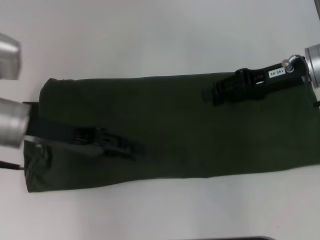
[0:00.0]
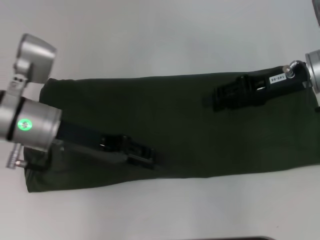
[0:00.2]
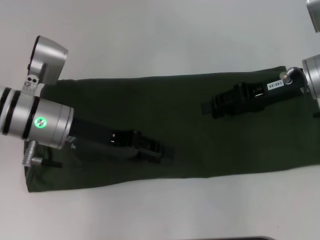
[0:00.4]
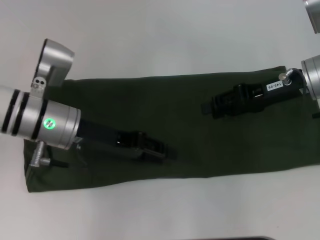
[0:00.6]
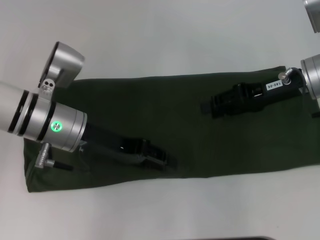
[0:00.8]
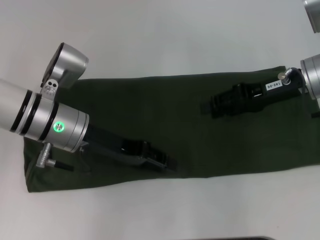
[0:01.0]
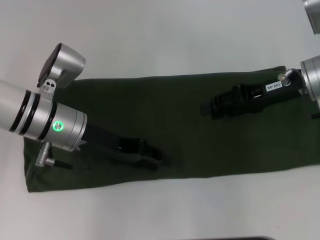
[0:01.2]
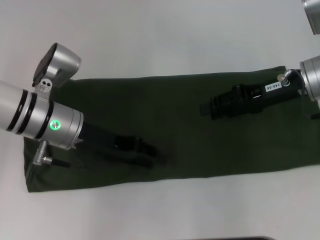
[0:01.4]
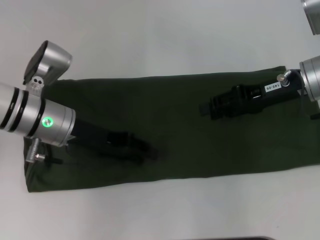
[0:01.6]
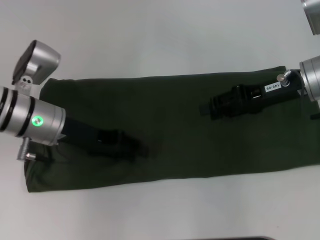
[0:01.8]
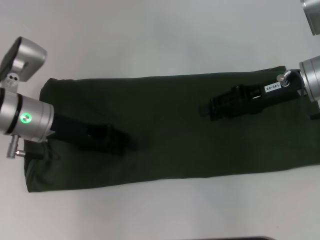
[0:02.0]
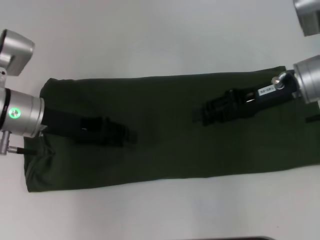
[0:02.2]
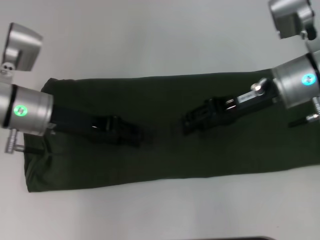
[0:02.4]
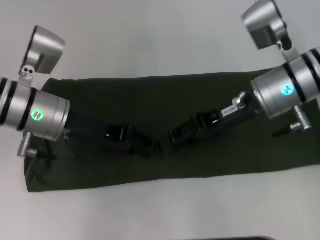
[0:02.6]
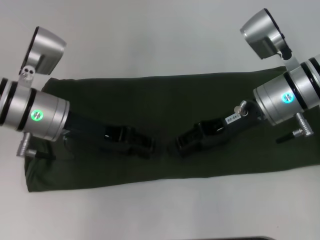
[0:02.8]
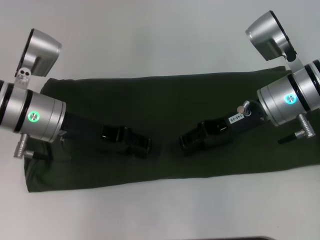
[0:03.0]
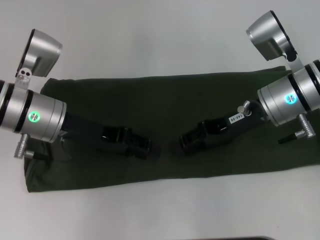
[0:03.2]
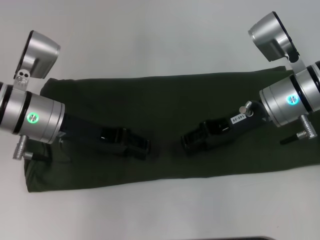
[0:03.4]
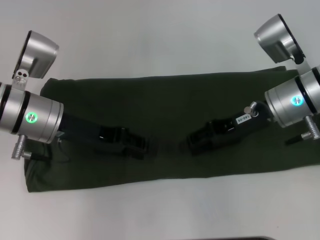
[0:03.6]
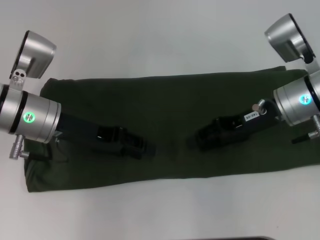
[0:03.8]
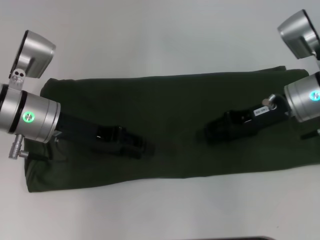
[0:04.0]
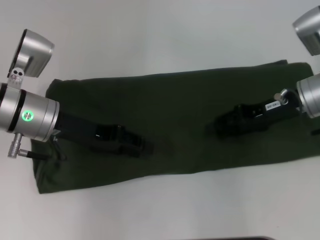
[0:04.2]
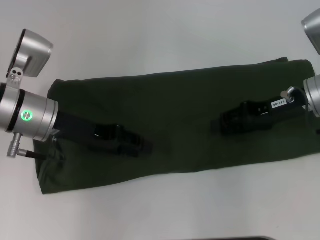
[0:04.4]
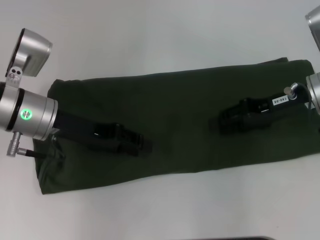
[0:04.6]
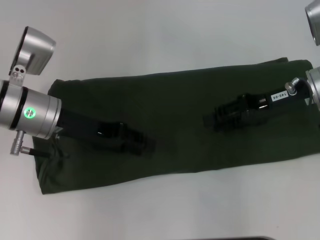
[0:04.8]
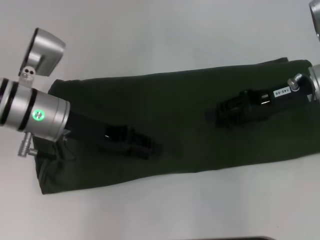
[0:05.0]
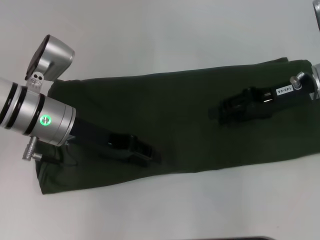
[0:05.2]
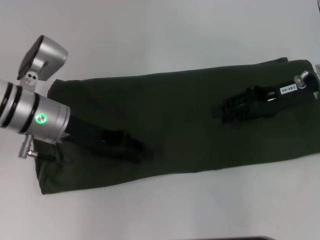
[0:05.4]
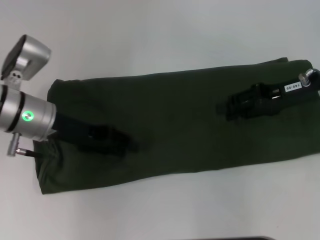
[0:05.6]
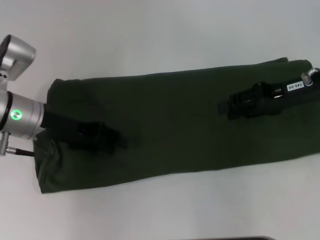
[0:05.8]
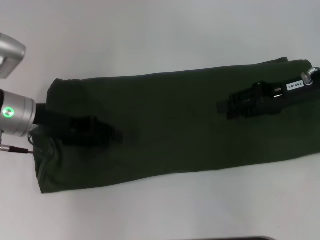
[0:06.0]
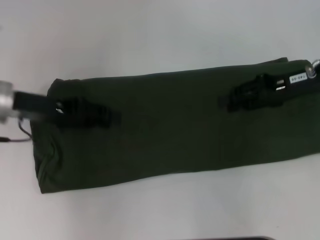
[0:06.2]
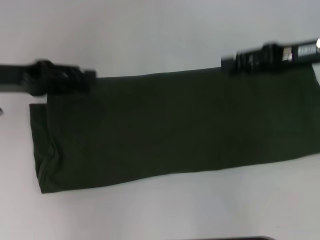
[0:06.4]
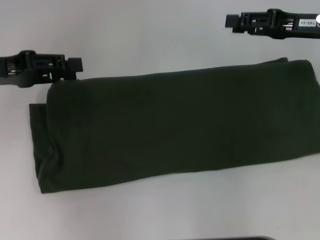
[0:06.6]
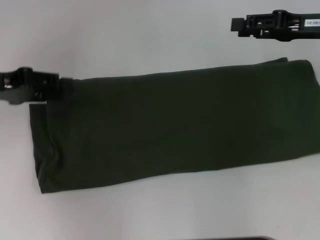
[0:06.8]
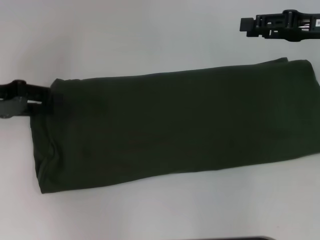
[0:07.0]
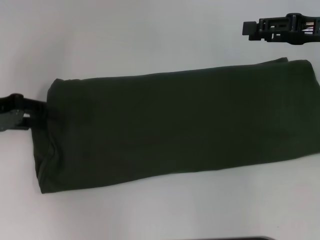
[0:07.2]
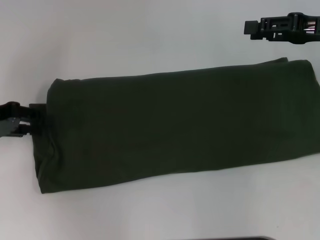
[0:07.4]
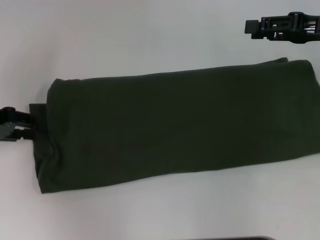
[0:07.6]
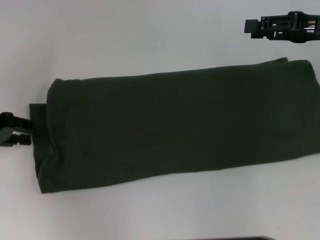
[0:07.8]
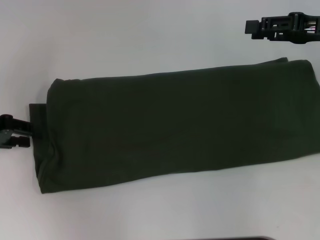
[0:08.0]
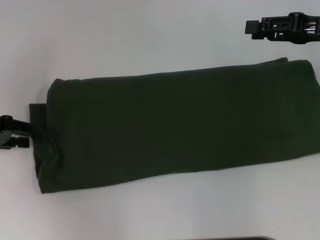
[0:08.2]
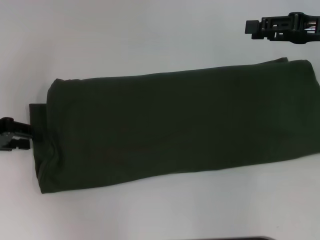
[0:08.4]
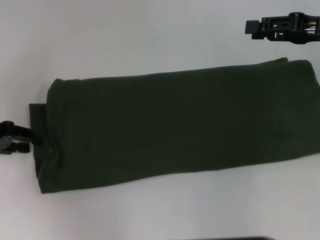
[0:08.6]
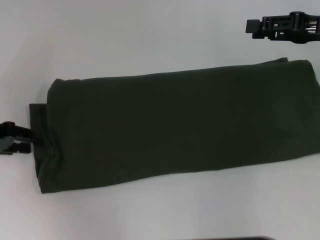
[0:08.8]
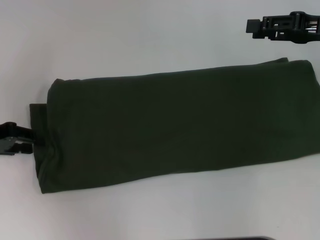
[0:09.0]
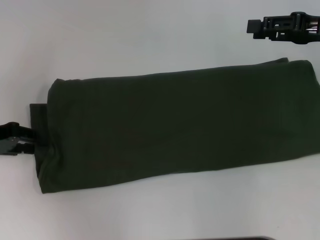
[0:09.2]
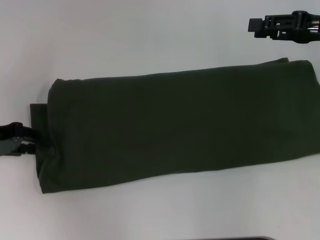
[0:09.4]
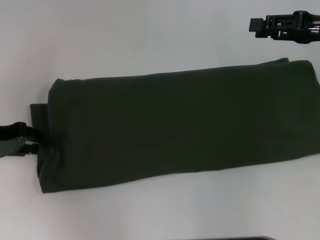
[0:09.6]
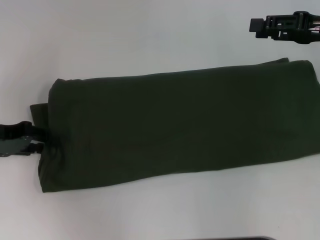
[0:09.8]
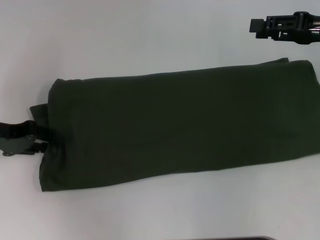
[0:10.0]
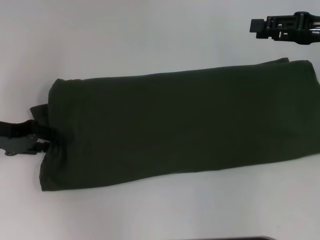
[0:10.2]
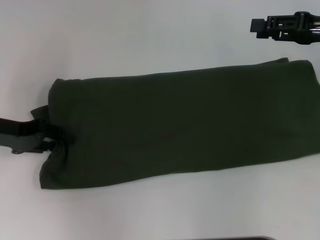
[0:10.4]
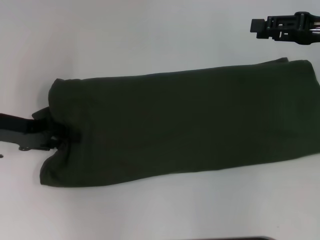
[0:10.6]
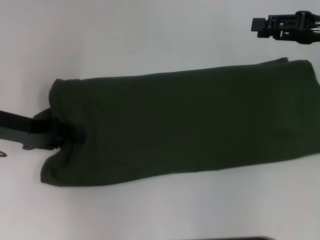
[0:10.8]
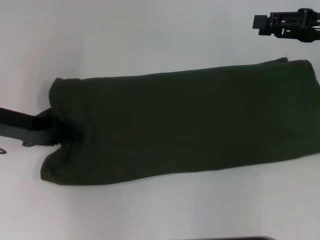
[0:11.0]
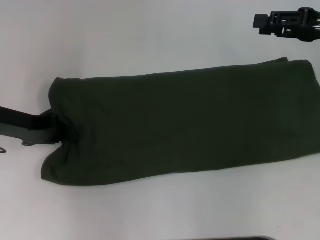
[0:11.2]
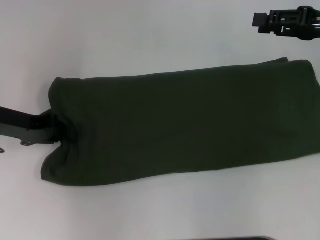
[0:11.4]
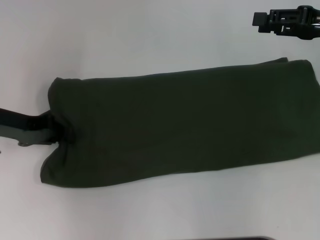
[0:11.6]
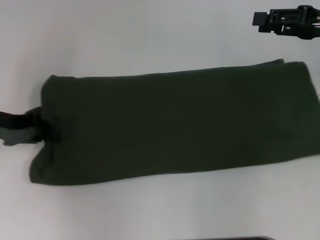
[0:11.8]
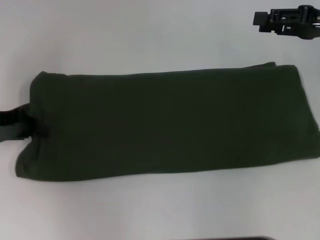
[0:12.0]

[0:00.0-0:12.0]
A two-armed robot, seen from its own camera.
0:00.0 to 0:01.6: The left gripper shifts by some 5 cm.
0:01.6 to 0:03.0: The right gripper goes about 5 cm to the left.
0:03.0 to 0:04.4: The right gripper goes some 5 cm to the right.
0:04.4 to 0:06.0: The grippers make only small movements.
0:06.0 to 0:07.6: The left gripper goes some 10 cm to the left, while the right gripper shifts by about 5 cm.
0:07.6 to 0:10.4: The grippers stay close to where they were, moving slightly.
0:10.4 to 0:12.0: The left gripper closes up.

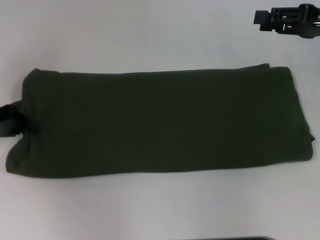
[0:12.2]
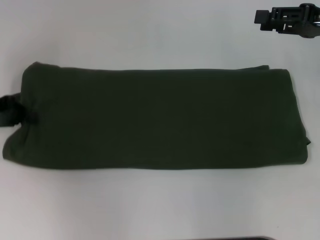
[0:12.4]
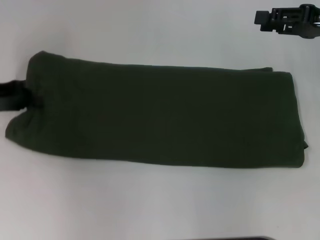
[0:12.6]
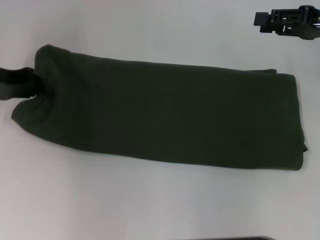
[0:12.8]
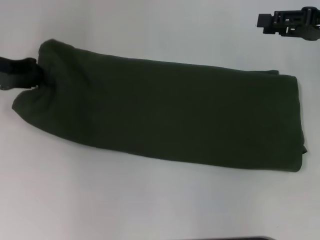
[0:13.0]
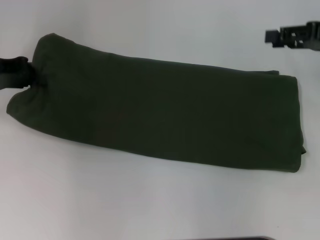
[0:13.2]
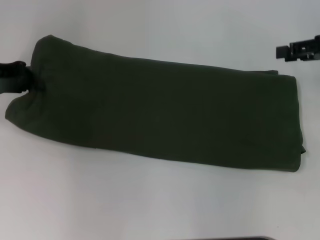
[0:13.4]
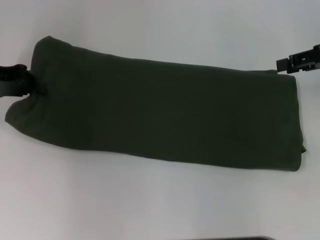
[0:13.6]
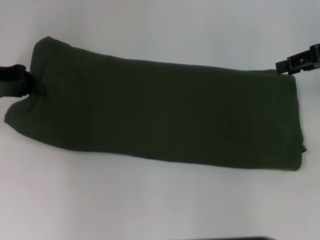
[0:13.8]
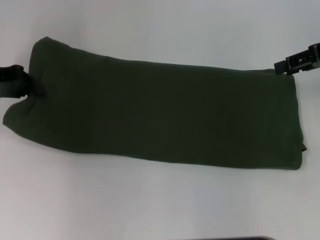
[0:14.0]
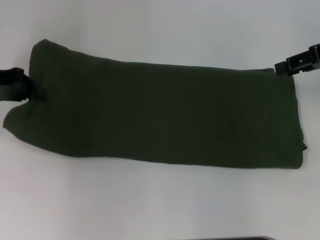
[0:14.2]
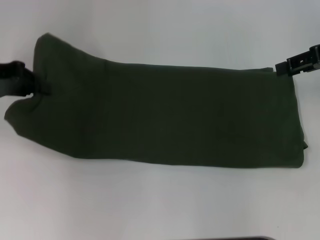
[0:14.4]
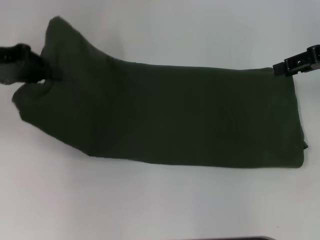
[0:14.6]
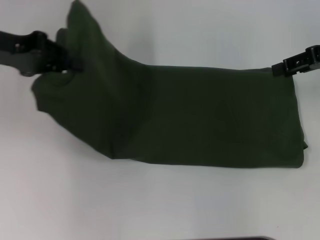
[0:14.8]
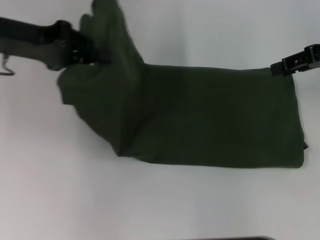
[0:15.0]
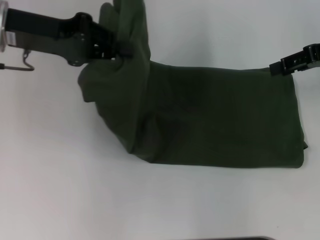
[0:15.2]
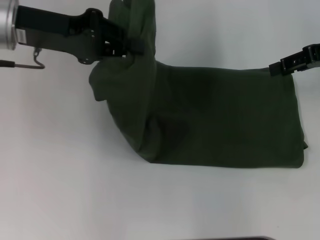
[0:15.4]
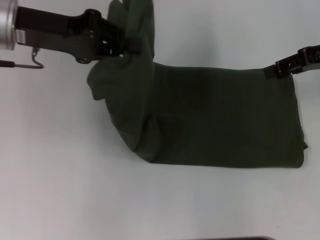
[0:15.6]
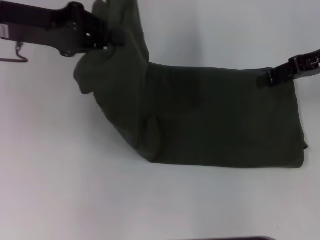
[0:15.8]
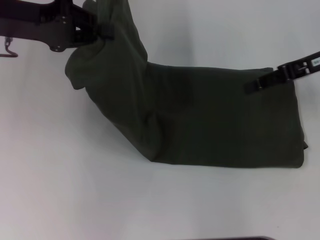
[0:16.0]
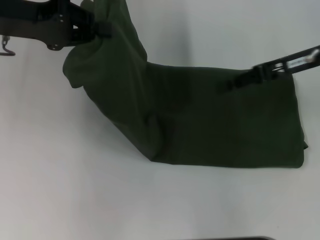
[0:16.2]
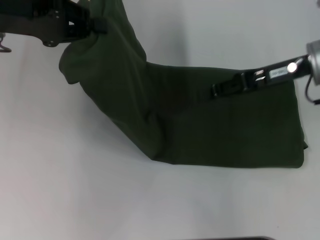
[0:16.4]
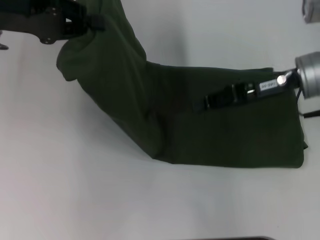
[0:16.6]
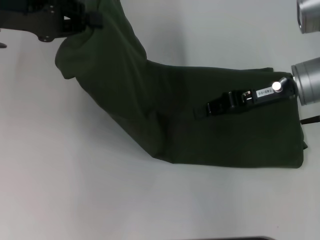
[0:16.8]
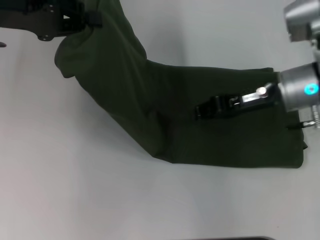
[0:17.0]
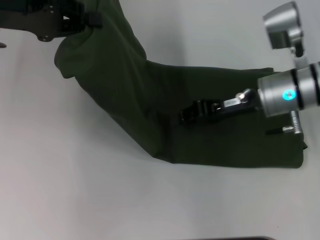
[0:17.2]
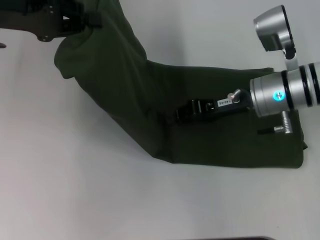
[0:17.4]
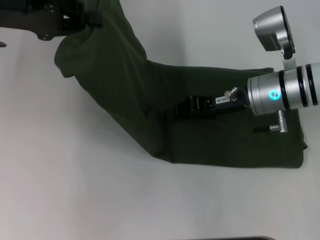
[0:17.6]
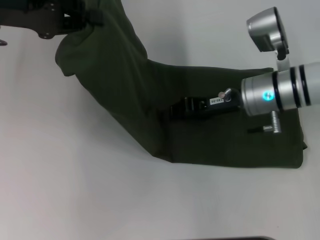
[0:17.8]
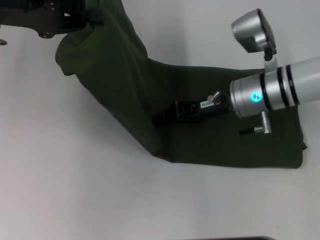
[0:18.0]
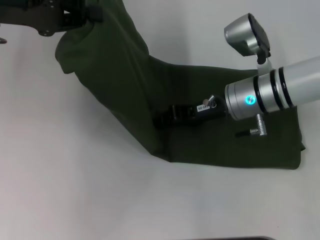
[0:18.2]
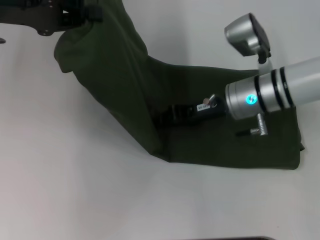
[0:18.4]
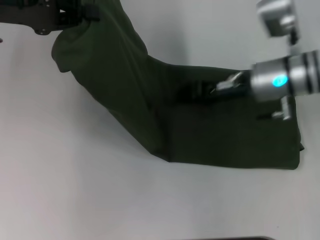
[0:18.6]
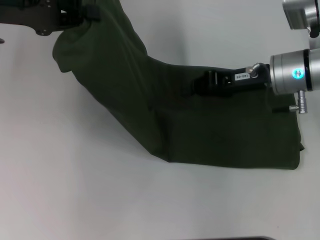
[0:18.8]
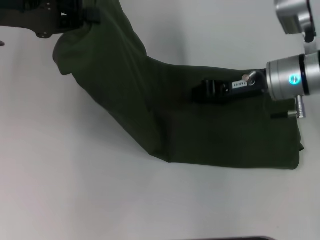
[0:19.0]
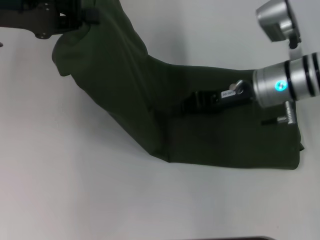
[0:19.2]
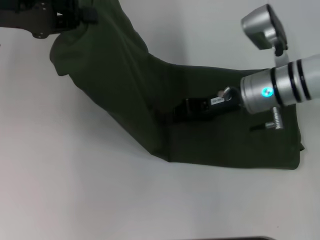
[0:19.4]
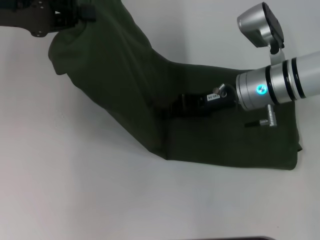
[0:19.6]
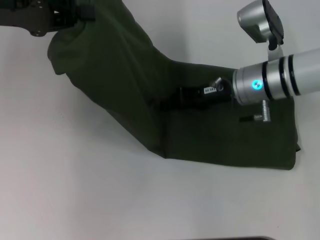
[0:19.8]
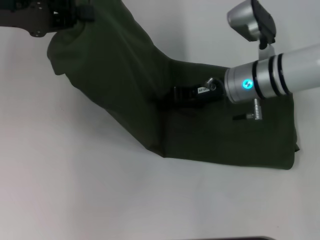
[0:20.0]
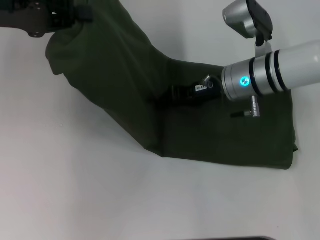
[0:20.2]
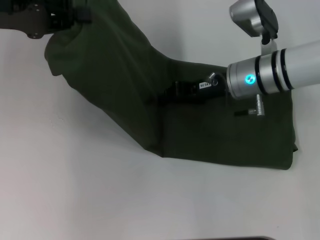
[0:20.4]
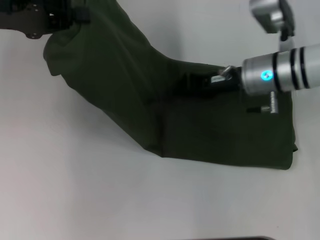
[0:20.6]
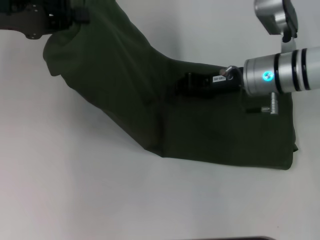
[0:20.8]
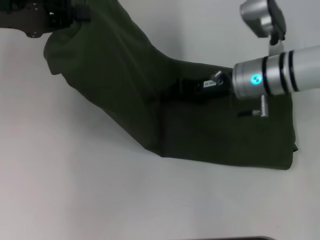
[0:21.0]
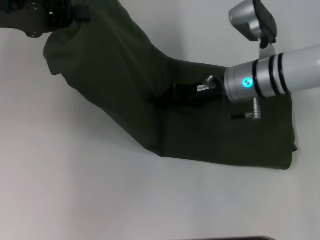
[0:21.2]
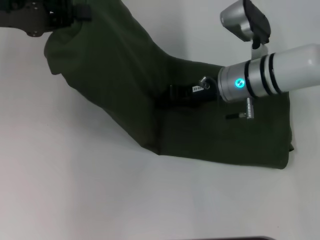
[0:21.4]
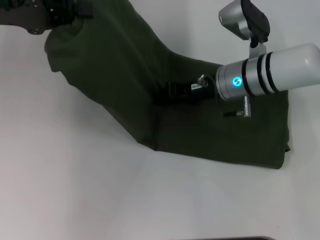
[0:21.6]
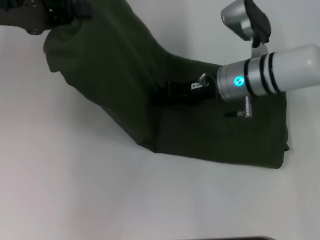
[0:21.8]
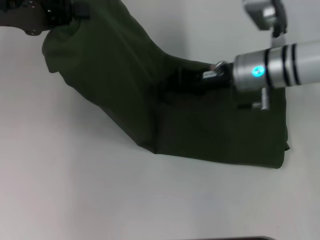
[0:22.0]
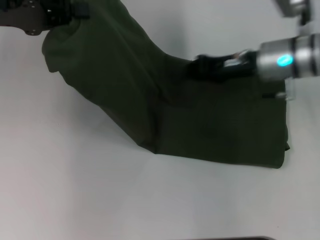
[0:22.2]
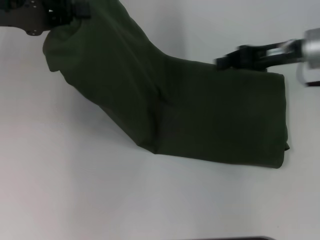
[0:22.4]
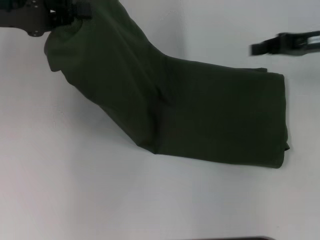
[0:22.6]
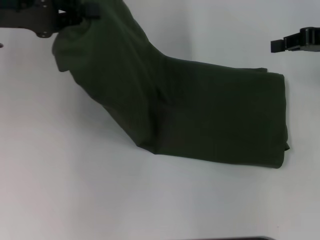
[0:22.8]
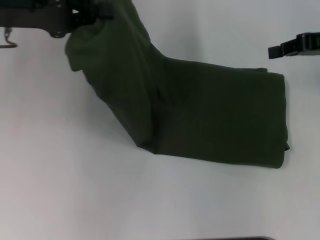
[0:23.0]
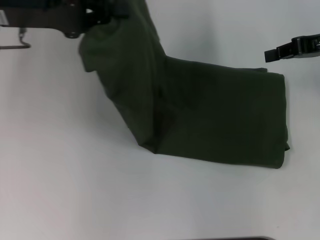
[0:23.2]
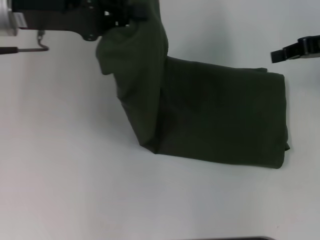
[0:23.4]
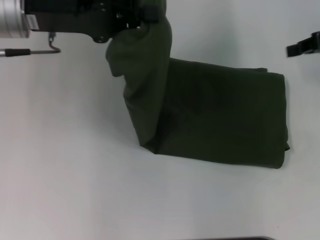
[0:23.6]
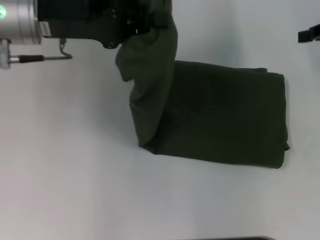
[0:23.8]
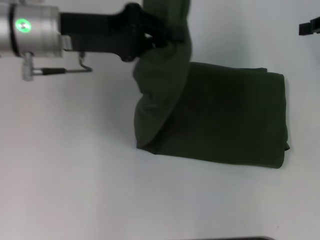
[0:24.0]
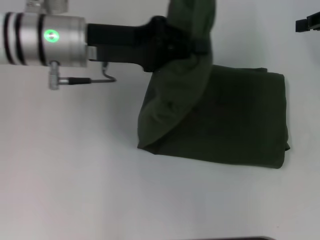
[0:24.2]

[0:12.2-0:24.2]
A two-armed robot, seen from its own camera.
0:12.2 to 0:13.8: The left gripper moves forward, roughly 5 cm.
0:13.8 to 0:15.2: The left gripper travels to the right and upward by some 10 cm.
0:15.2 to 0:16.6: The right gripper travels to the left and downward by approximately 10 cm.
0:16.6 to 0:18.2: The right gripper moves to the left and downward, about 10 cm, and closes.
0:19.8 to 0:21.2: The grippers move only a little.
0:21.2 to 0:22.6: The right gripper heads to the right and upward, covering approximately 20 cm.
0:22.6 to 0:24.2: The left gripper travels to the right by some 15 cm. The right gripper shifts by roughly 5 cm.
